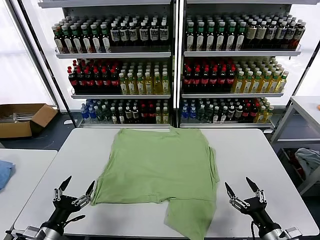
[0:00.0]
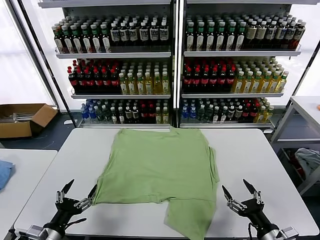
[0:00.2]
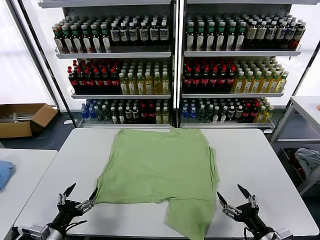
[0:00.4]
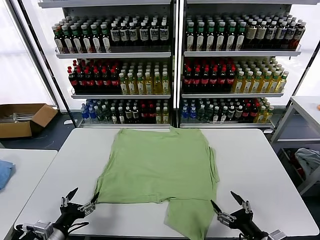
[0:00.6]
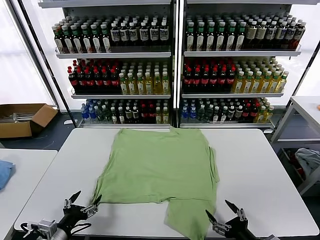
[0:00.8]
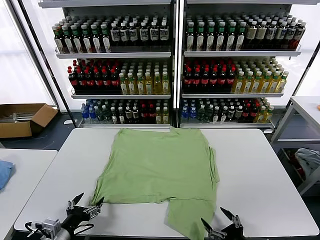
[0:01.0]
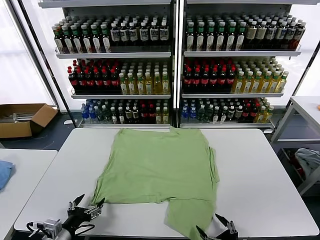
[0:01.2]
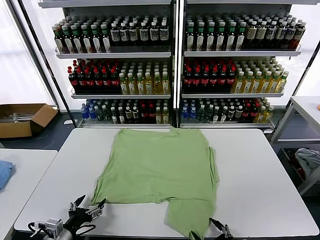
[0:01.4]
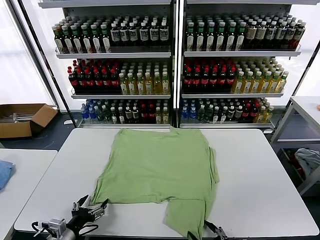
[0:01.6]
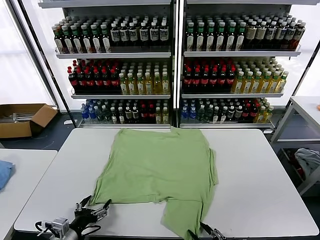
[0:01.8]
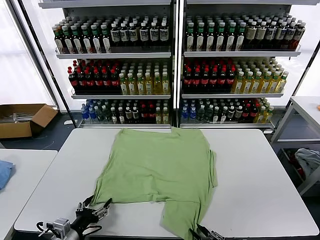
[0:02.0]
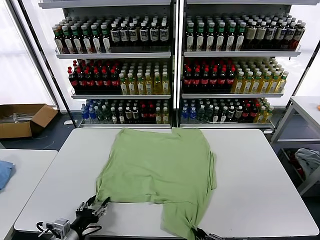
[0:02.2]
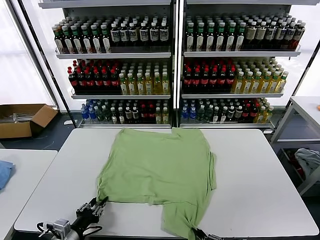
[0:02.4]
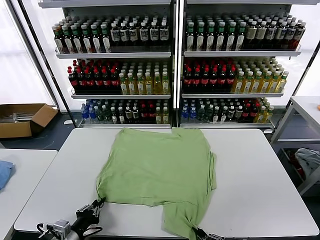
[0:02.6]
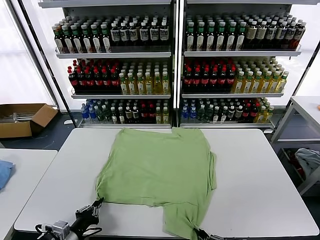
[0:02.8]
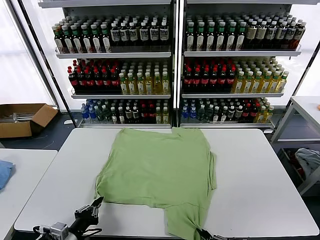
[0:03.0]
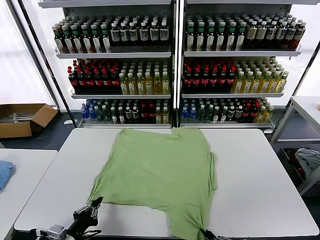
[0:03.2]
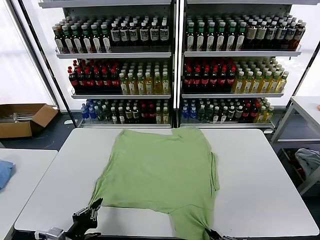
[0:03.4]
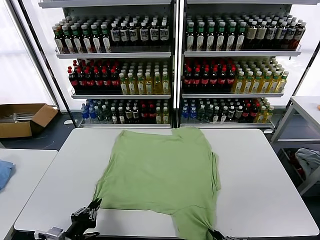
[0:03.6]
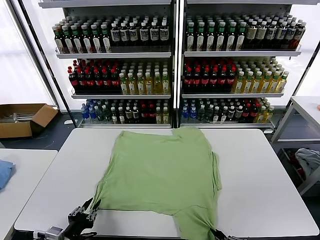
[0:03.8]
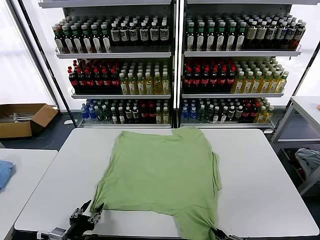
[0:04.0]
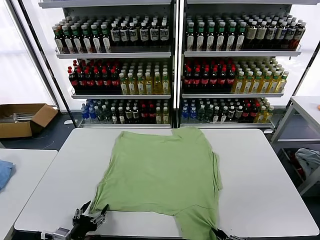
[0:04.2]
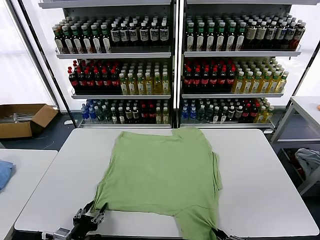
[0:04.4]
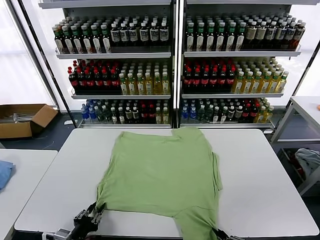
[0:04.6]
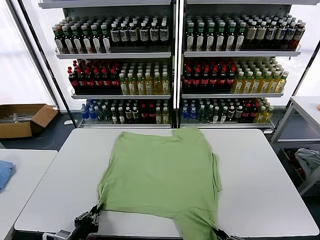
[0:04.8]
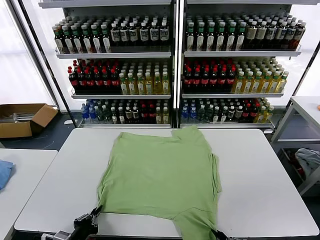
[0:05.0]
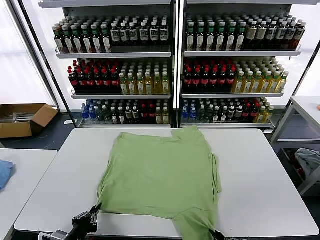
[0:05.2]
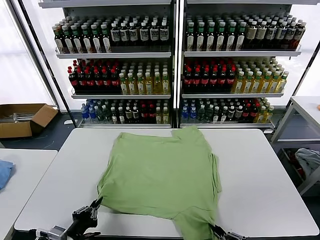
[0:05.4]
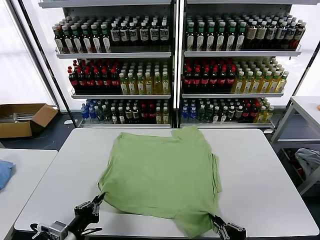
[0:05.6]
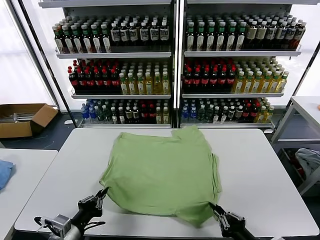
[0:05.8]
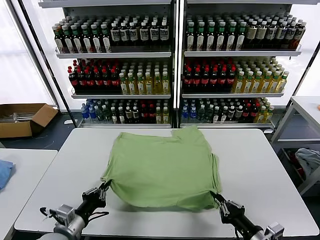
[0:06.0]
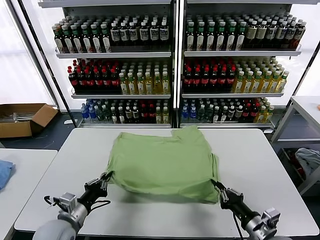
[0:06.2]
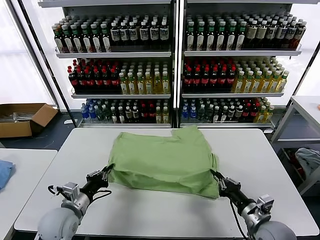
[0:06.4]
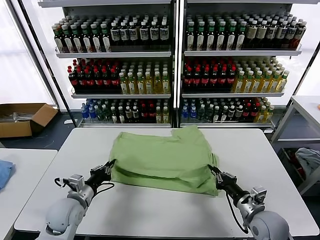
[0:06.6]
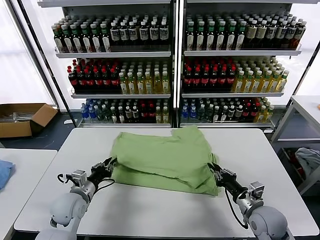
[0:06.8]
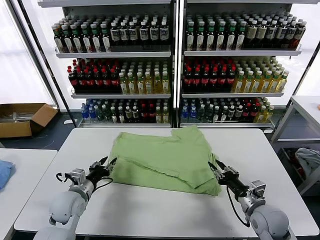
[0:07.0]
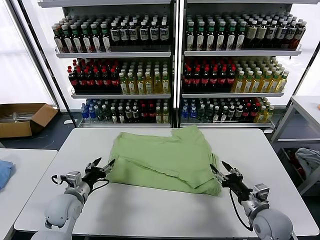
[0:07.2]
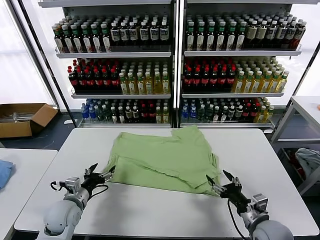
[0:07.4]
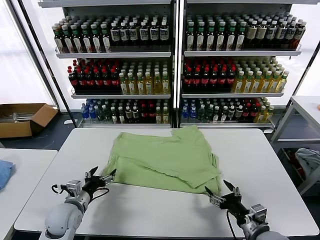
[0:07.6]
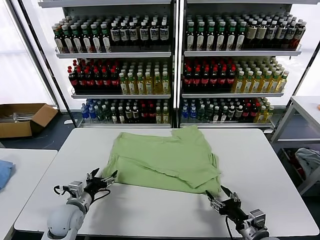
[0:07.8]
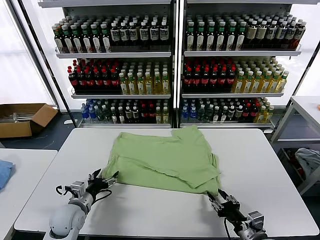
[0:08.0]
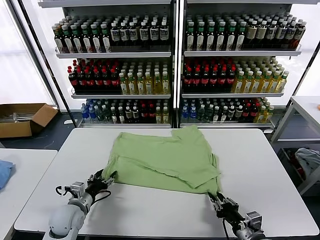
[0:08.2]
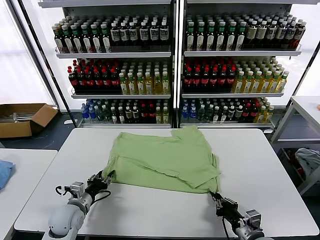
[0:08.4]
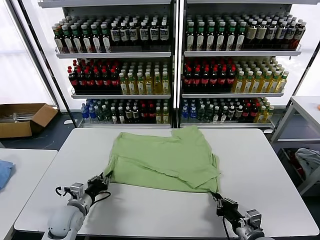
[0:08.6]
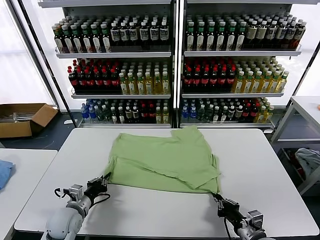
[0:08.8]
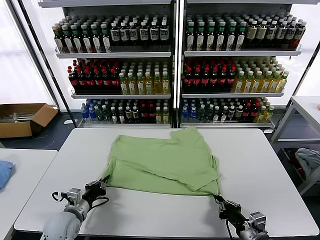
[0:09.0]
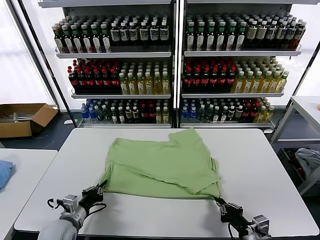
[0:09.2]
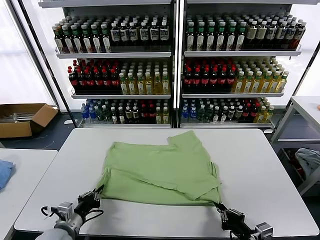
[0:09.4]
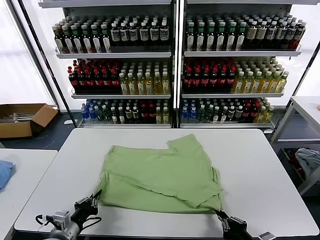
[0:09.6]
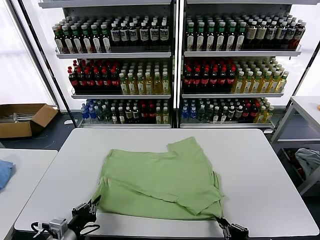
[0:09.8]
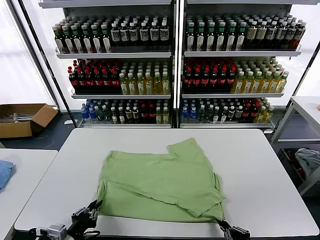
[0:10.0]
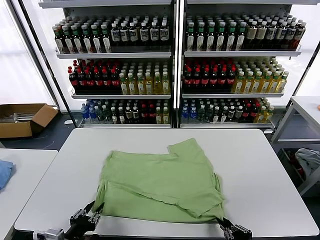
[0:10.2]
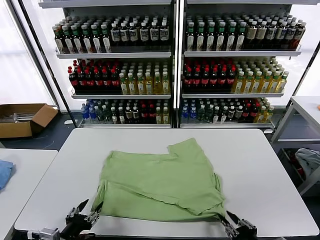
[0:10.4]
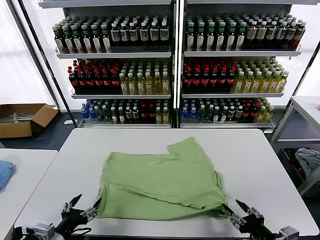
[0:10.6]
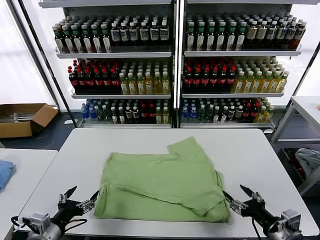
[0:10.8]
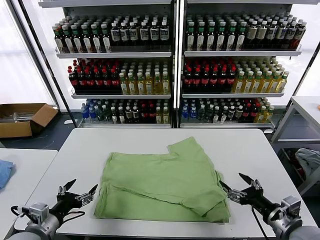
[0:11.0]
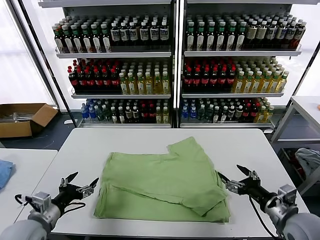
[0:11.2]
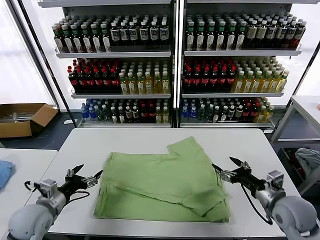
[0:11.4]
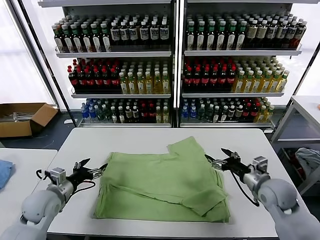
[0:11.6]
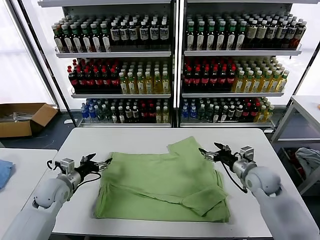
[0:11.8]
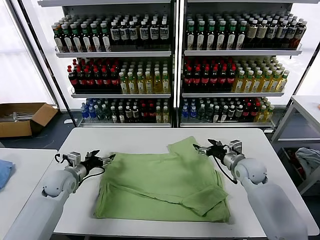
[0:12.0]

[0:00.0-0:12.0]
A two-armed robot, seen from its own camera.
Task of the whole recording: fold and organize the clothes.
Step, 0.0 to 2.6 s: use both grippers simultaneously to clamp the lower edge of the clothing fabric.
Step, 2.8 to 7.2 s: use both grippers to drag the lower edge of the fabric forward and fold it over the upper edge.
Step, 7.4 to 10.4 s: Drag the clothes downward with both gripper.
1.6 to 3.0 s: The right gripper closes. The left gripper closes.
3.0 to 4.4 s: The left gripper opens up.
4.4 to 6.0 s: The two grippers go approximately 5 cm forward. The left gripper closes up.
6.0 to 7.6 s: The left gripper moves forward, about 10 cm, and opens up; the right gripper opens its fingers.
7.6 to 9.0 s: The left gripper closes up; the right gripper closes its fingers.
9.0 to 10.4 s: The right gripper moves backward and upward, approximately 10 cm, and opens up, while the left gripper goes about 15 cm backward and upward, and opens its fingers.
10.4 to 12.0 s: Both grippers travel together forward, roughly 30 cm. The right gripper opens its fingers.

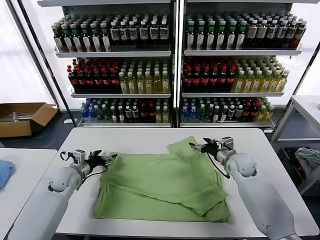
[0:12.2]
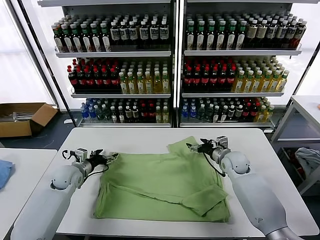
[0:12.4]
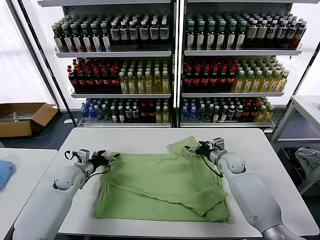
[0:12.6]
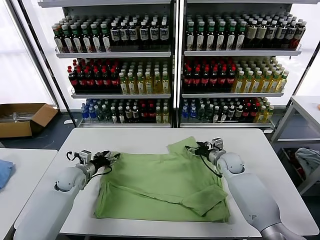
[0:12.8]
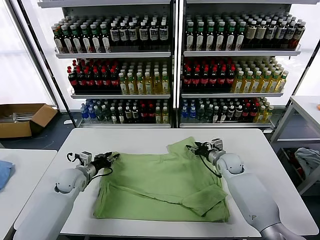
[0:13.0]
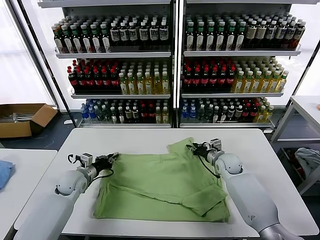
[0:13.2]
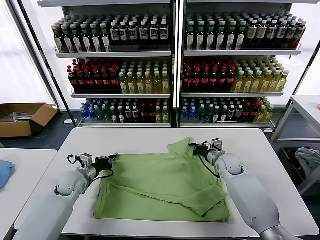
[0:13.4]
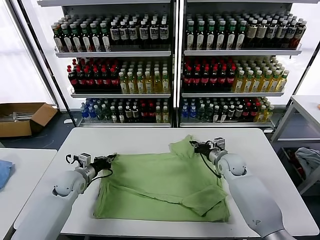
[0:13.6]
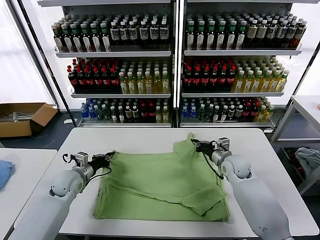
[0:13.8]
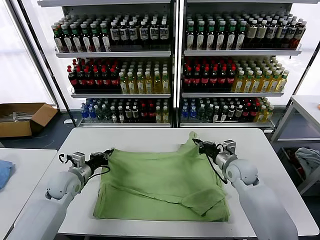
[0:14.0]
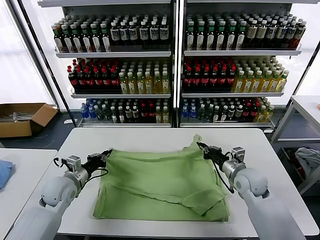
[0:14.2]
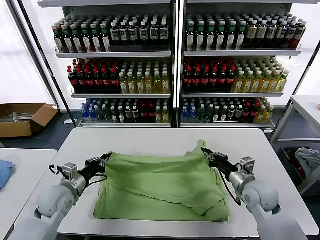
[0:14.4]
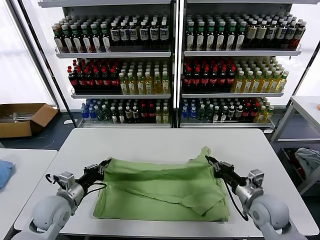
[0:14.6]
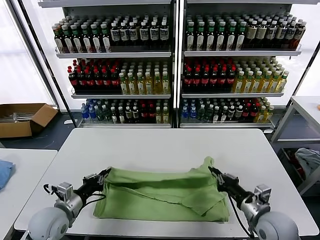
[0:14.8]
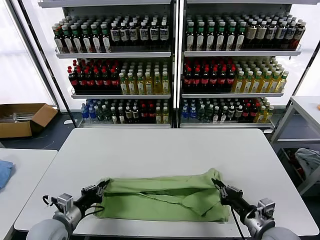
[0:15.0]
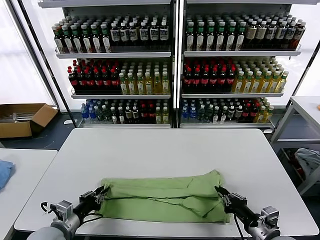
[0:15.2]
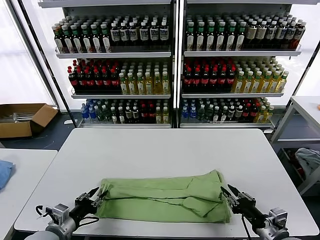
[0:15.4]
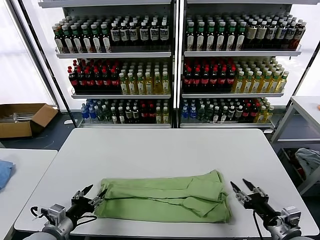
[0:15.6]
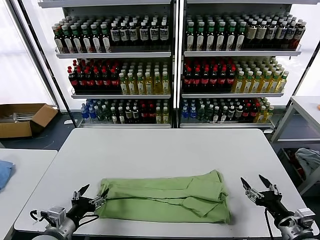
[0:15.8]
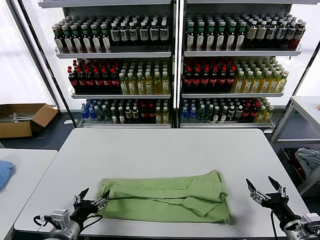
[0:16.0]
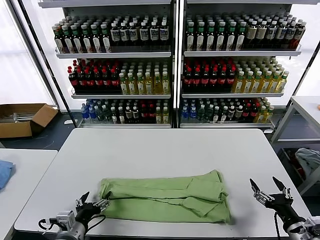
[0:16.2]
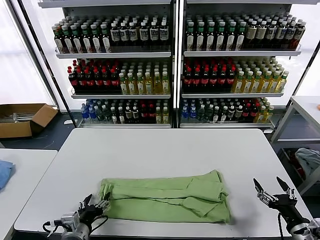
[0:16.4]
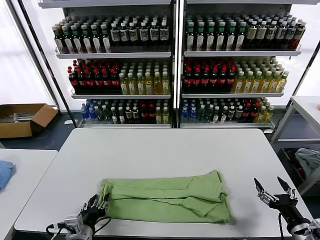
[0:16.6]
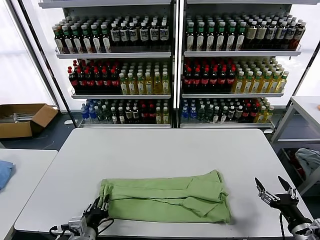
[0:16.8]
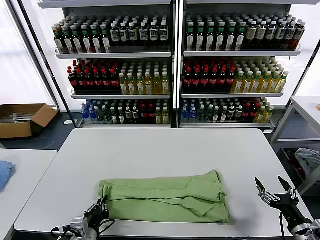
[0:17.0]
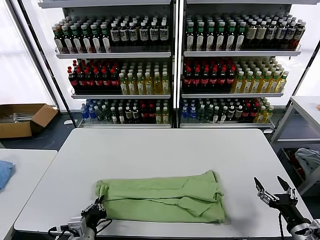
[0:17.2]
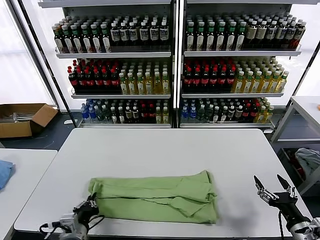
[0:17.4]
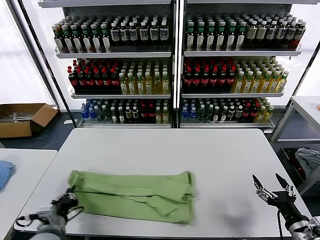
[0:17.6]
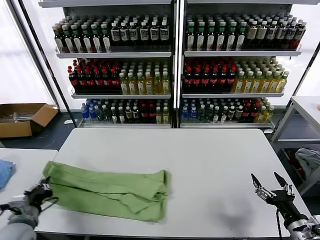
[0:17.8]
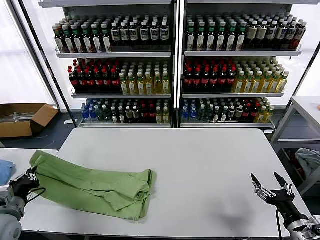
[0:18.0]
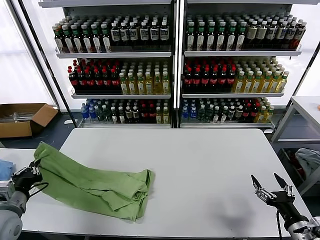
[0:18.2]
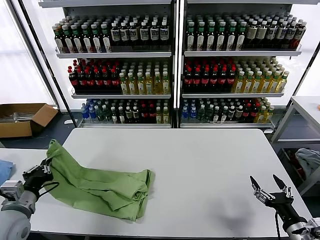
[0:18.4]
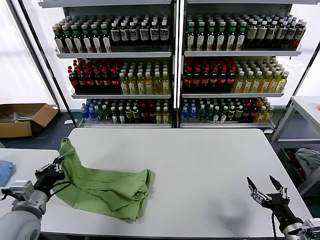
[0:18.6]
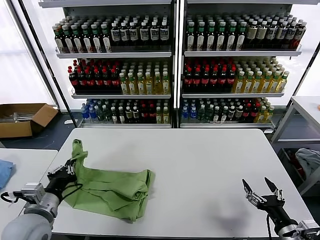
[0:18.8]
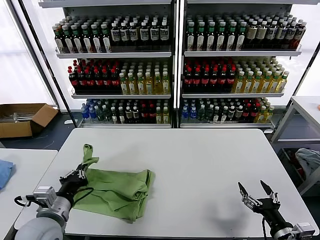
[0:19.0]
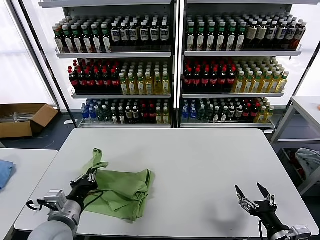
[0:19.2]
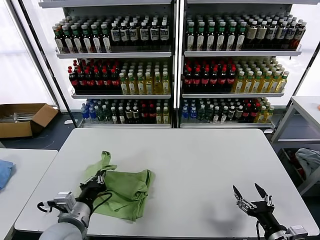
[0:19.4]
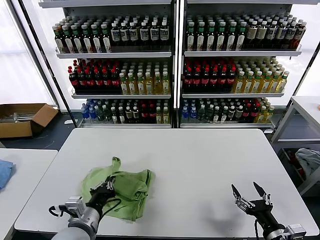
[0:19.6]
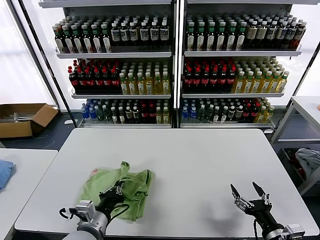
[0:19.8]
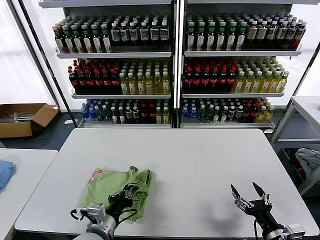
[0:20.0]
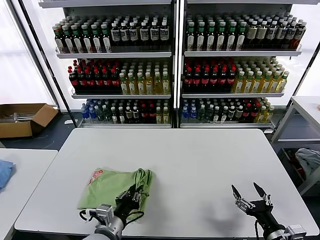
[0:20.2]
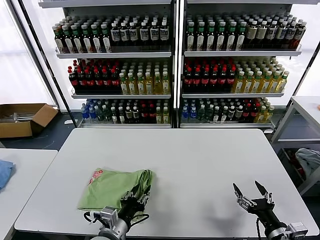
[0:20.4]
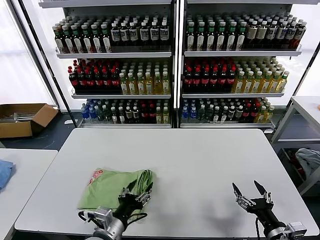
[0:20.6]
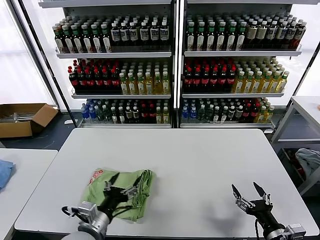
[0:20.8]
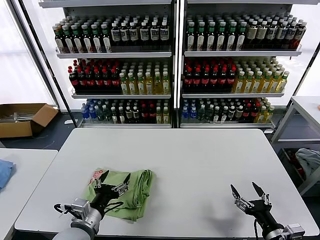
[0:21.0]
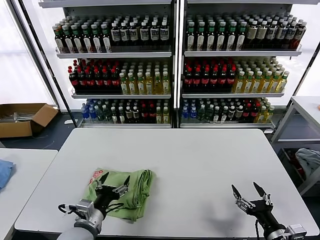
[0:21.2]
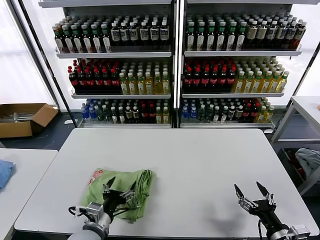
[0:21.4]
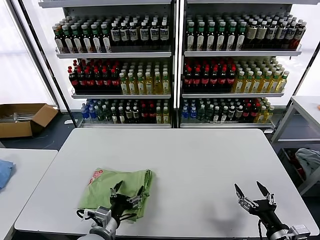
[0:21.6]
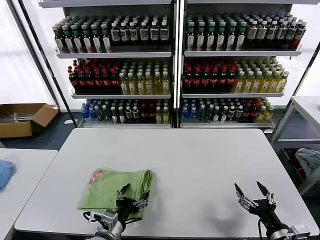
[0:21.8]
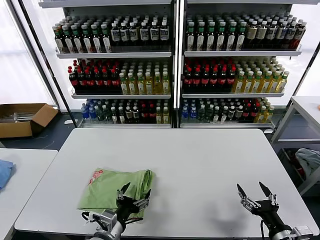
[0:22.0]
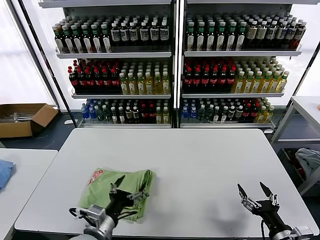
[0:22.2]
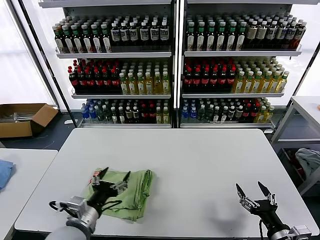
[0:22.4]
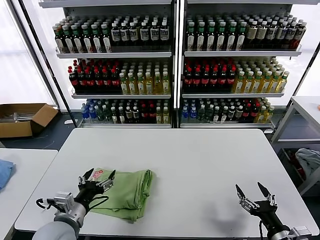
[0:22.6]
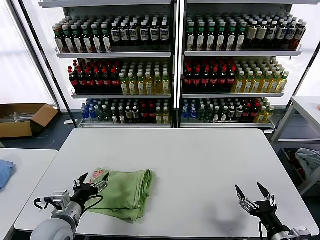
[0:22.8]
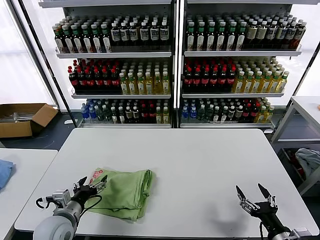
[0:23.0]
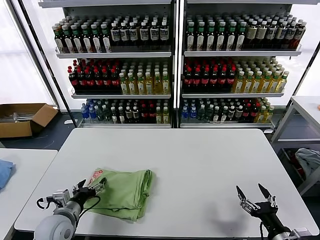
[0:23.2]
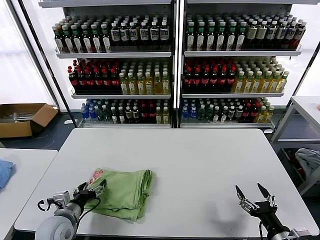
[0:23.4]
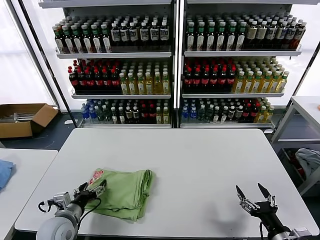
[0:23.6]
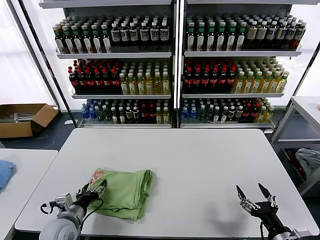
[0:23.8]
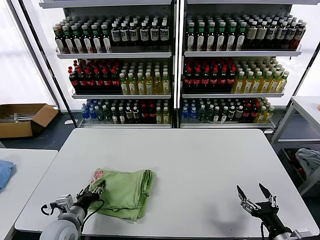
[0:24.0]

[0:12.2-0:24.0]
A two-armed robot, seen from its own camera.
Task of the whole recording: fold and organize the clothes.
Step, 13.6 to 15.4 s: use both grippers to drag the upper edge of the fabric backward and fold it over the lower edge.
Step, 15.6 to 17.0 s: use the left gripper to clamp the left edge of the fabric.
Step, 17.2 to 20.4 s: use the left gripper to drag the left edge of the fabric to the left and folds it over the right edge.
12.2 to 13.6 s: The right gripper closes up, while the left gripper closes.
13.6 to 15.2 s: The left gripper is displaced backward by about 20 cm, while the right gripper is displaced backward by about 30 cm.
15.2 to 16.6 s: Both grippers move to the right, approximately 10 cm. The right gripper opens its fingers. Meanwhile the left gripper opens up.
16.6 to 18.2 s: The left gripper shifts approximately 20 cm to the left and upward, and closes.
18.2 to 19.6 s: The right gripper moves to the left, approximately 5 cm, while the left gripper shifts approximately 20 cm to the right.
19.6 to 21.0 s: The left gripper opens up.
22.6 to 24.0 s: The left gripper heads downward, covering approximately 5 cm, and closes.
